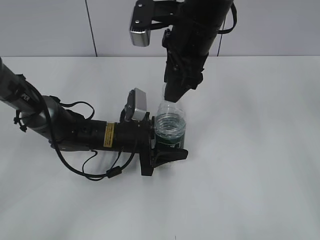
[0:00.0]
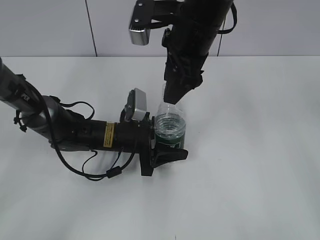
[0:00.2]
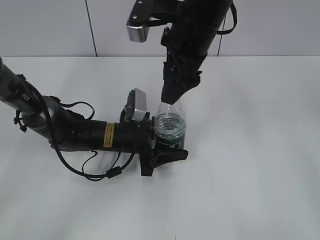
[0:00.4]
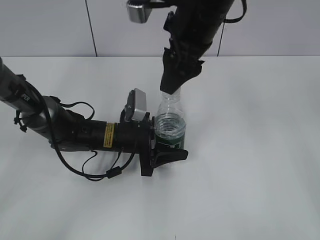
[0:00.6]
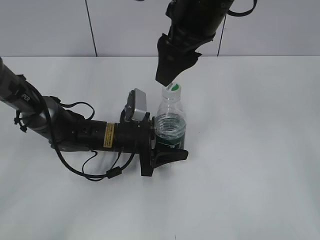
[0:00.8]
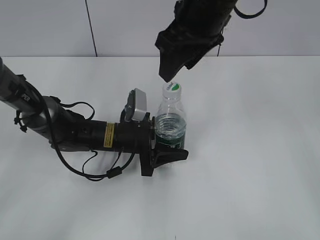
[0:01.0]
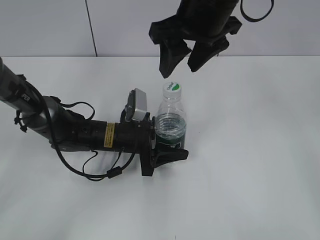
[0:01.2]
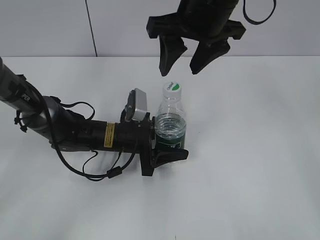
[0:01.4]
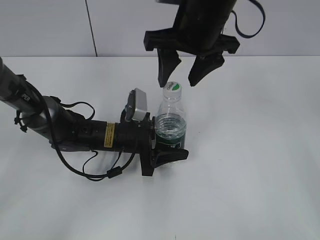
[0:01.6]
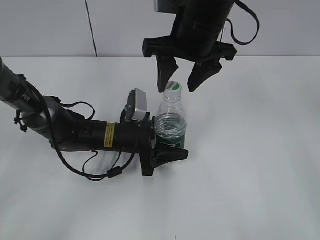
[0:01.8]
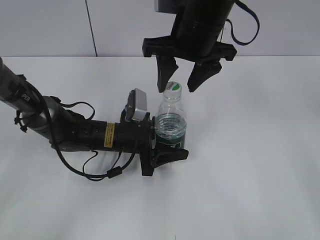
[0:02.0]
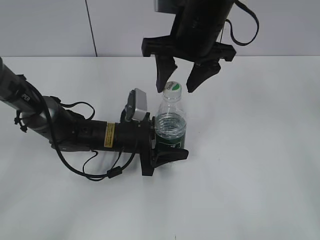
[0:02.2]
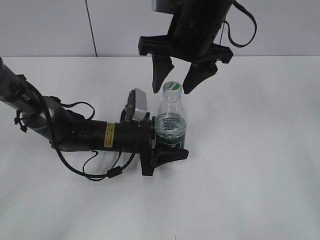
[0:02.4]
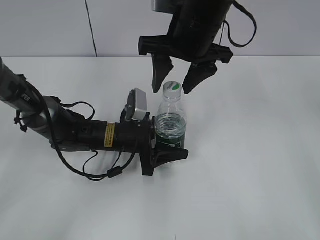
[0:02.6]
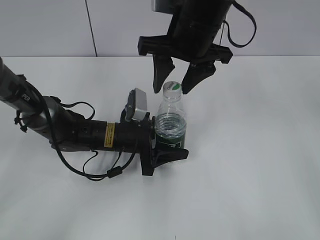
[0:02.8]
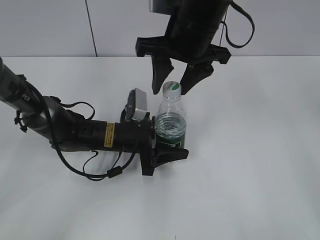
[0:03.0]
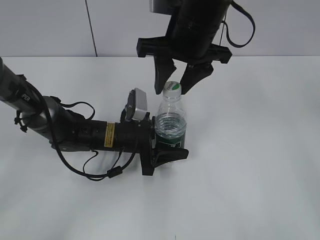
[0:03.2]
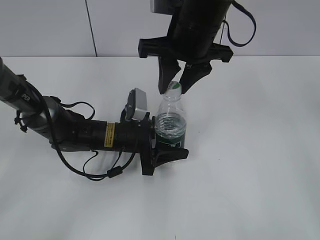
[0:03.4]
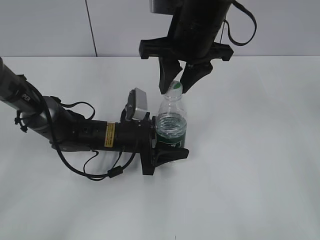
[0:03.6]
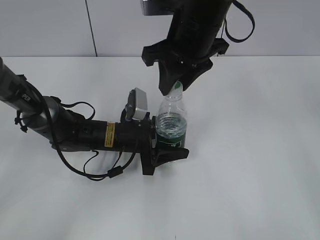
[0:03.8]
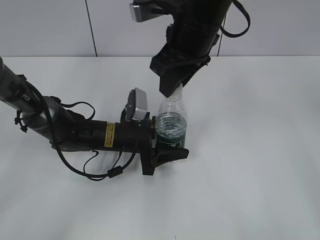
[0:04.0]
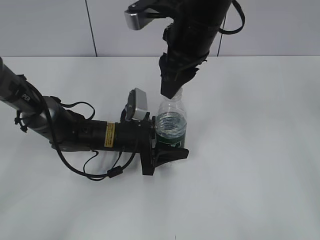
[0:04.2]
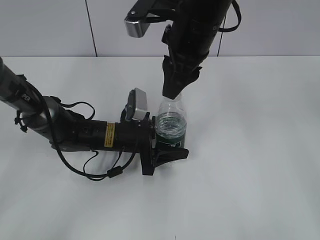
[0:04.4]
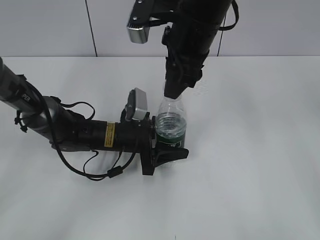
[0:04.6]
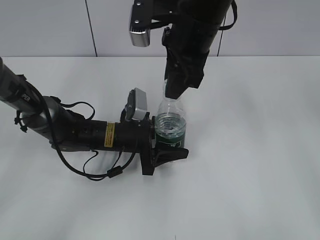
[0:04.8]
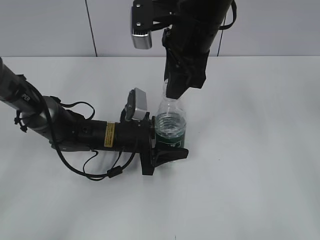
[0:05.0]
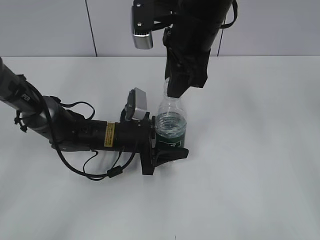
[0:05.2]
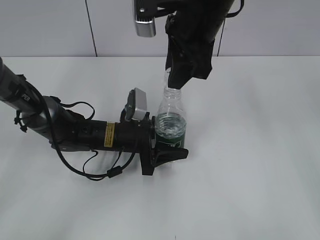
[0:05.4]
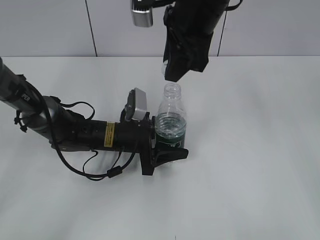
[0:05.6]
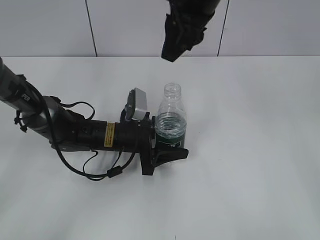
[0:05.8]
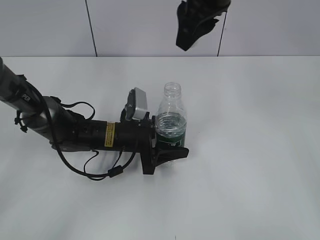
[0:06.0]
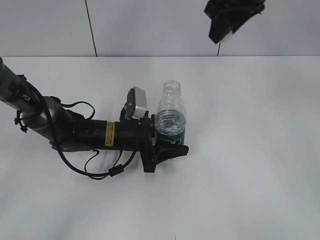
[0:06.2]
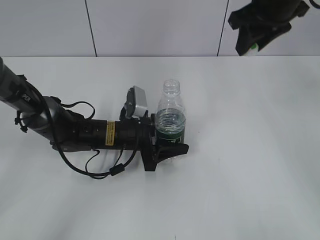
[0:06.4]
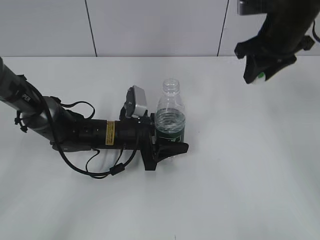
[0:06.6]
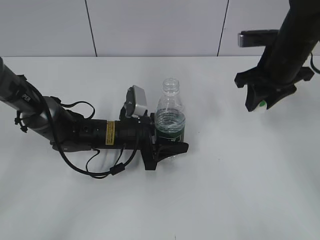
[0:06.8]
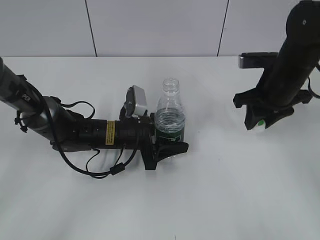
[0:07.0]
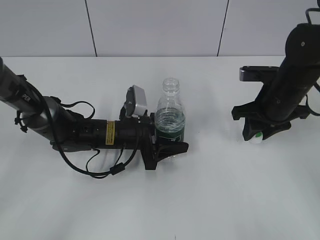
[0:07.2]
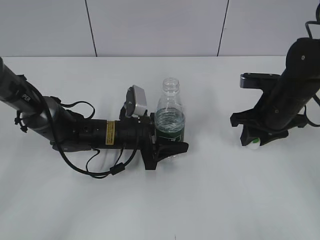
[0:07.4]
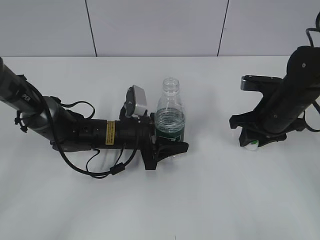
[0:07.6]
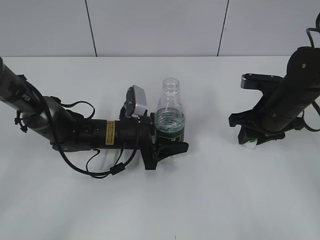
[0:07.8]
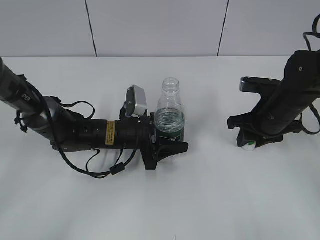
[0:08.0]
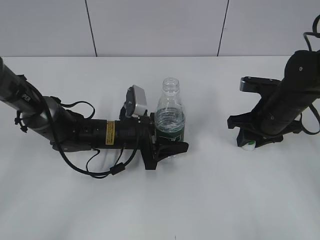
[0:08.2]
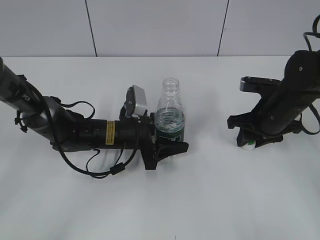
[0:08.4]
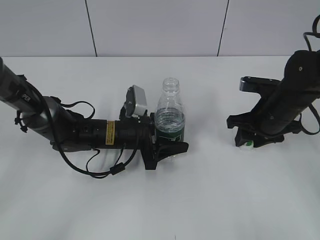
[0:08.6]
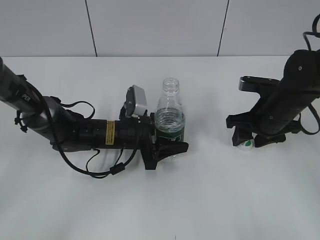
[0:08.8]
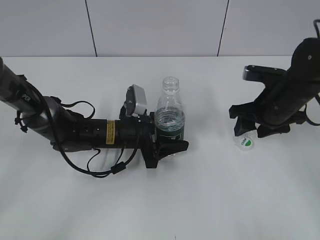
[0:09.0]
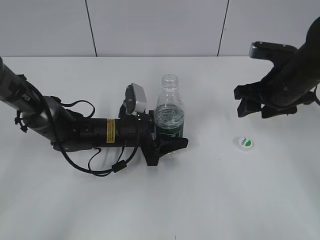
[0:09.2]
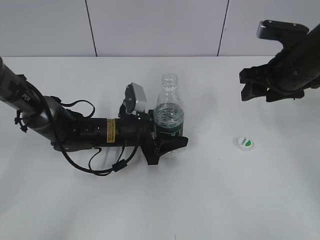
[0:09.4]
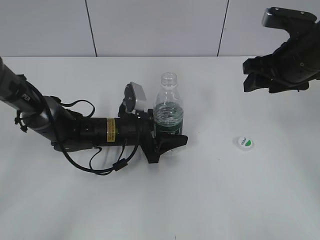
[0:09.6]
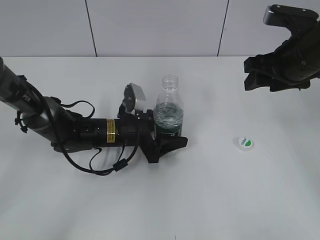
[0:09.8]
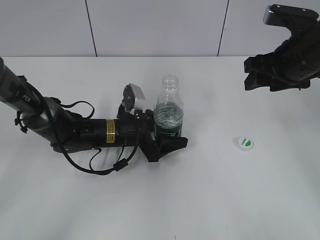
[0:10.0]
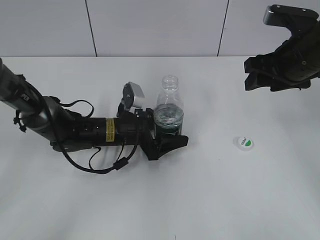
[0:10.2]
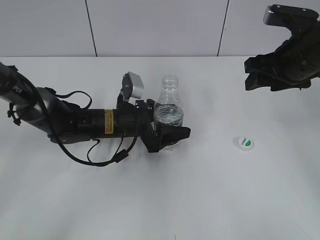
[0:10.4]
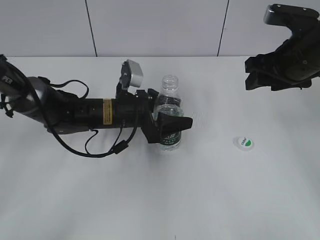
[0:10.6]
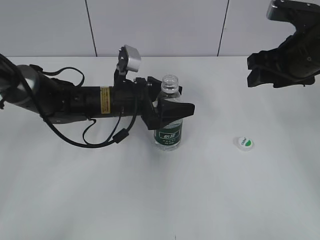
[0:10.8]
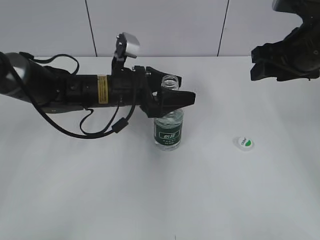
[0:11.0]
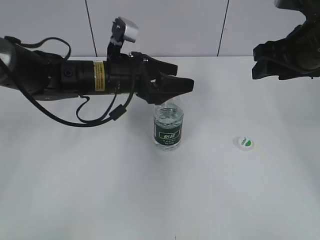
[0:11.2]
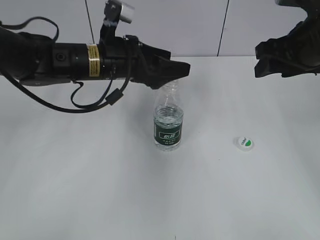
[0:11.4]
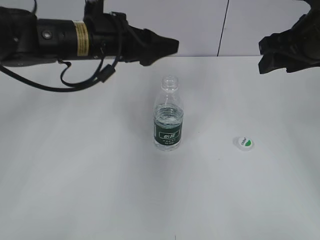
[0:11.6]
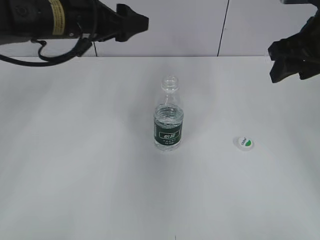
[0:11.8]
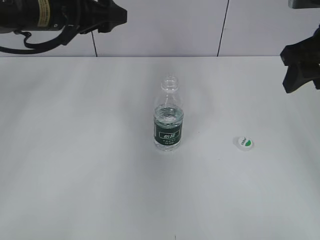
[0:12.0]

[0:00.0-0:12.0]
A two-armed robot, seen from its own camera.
Step, 0:00.0 to 0:05.6: Unscrew the bottle cap with the right gripper while holding the bottle with the left gripper.
Step, 0:05.8 to 0:08.8: Place the bottle cap on the table with the right gripper.
Step, 0:09.2 to 0:10.6: Place the bottle on the table with the left gripper.
0:00.0 to 0:01.6: The right gripper opens its fingers.
0:01.6 to 0:03.0: There are only small adjustments of the grippers.
0:03.0 to 0:04.4: The right gripper closes up.
0:04.4 to 0:06.0: The right gripper goes approximately 5 cm upward.
0:06.0 to 0:07.6: The right gripper goes some 25 cm downward and to the right.
0:07.6 to 0:09.0: The right gripper opens its fingers.
0:09.0 to 0:10.4: The right gripper heads upward, covering roughly 10 cm. The left gripper opens.
0:10.4 to 0:12.0: The left gripper heads upward, covering about 20 cm; the right gripper is displaced upward by some 5 cm.

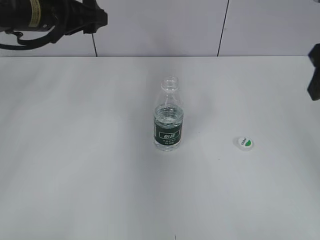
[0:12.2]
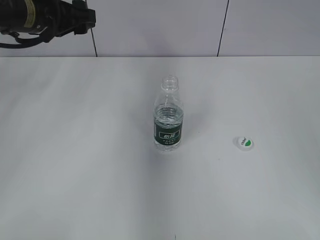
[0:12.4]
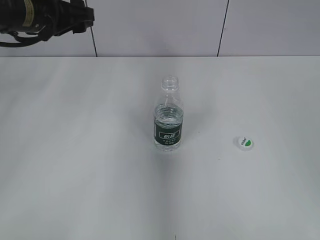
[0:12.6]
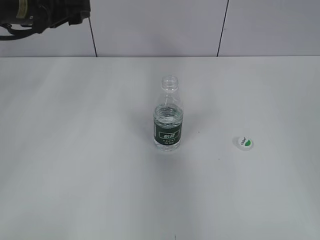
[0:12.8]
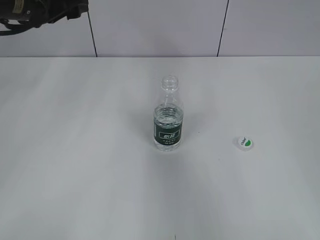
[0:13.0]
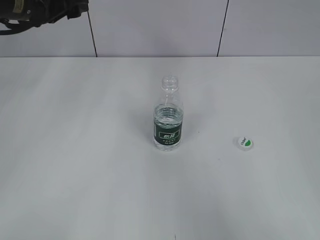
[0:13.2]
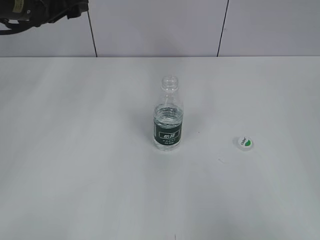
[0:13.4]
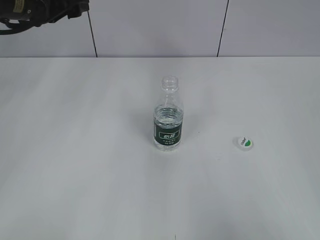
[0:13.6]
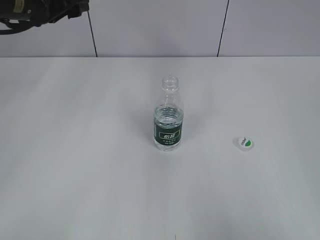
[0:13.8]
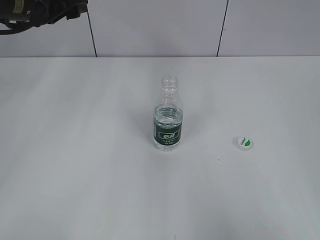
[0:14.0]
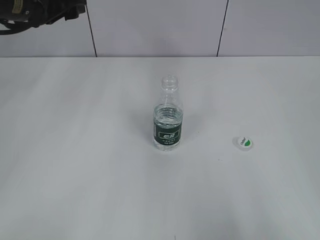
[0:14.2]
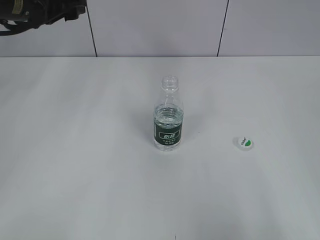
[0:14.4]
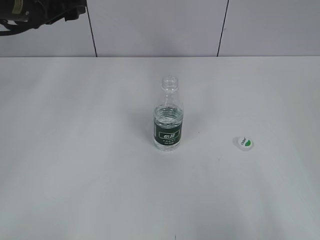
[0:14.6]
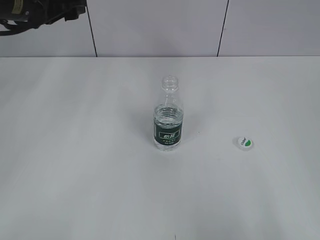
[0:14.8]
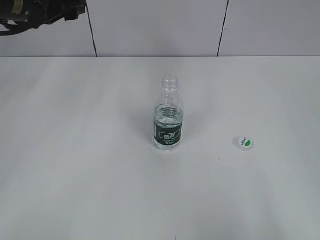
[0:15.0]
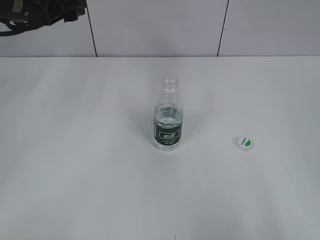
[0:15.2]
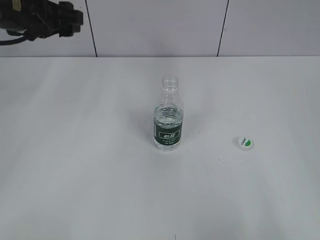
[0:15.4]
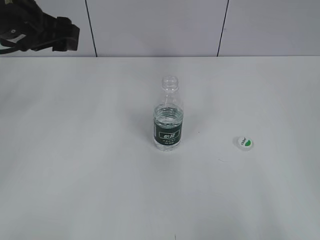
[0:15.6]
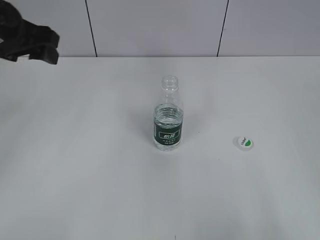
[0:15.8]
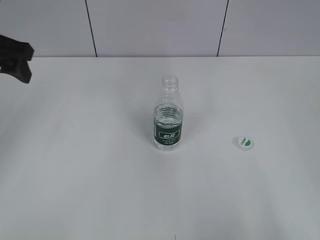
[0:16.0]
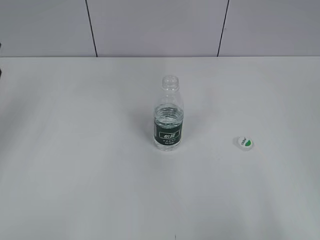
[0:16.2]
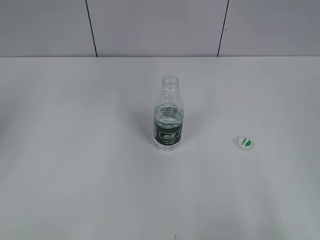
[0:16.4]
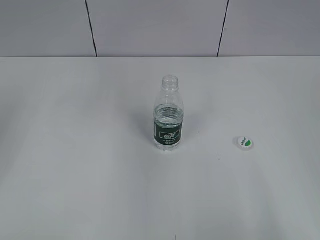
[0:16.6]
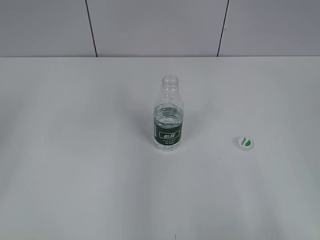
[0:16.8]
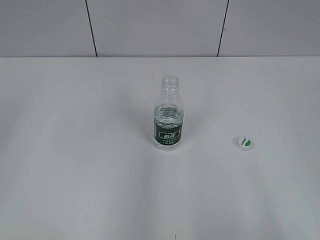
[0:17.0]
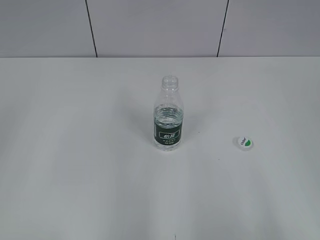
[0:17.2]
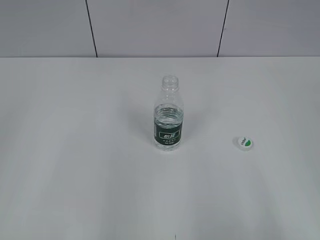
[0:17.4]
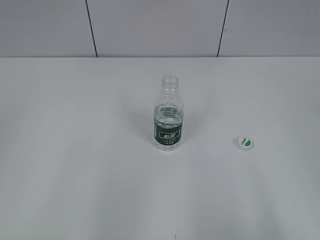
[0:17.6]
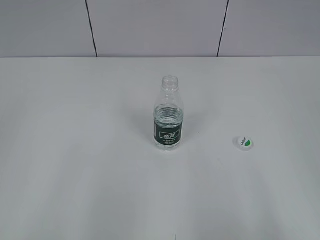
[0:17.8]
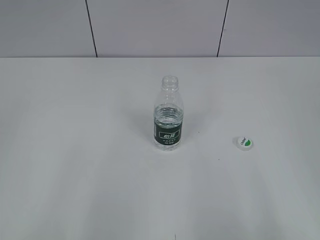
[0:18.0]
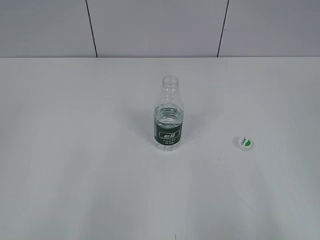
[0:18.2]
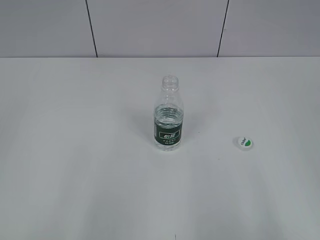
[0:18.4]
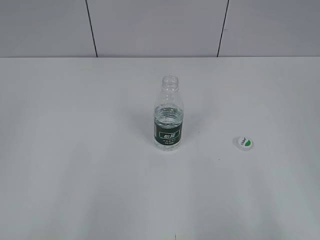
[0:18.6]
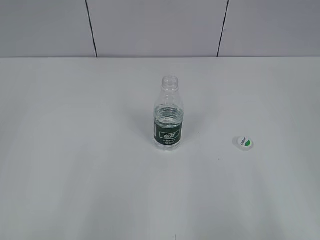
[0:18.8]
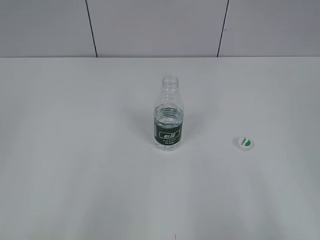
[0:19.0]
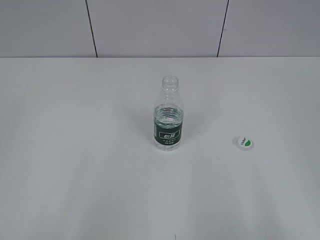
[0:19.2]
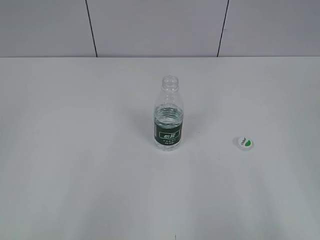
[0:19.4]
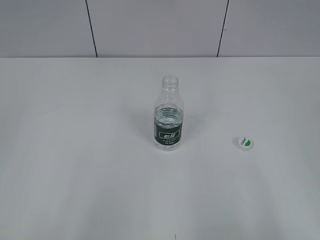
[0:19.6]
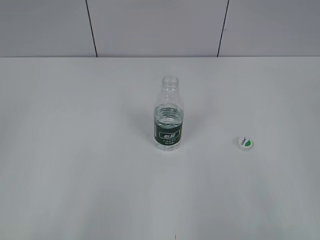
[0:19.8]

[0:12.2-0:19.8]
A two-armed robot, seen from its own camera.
0:12.2 to 0:13.8: The right gripper heads backward, covering some 25 cm.
0:15.2 to 0:16.8: The left gripper heads backward and to the left, covering about 20 cm.
